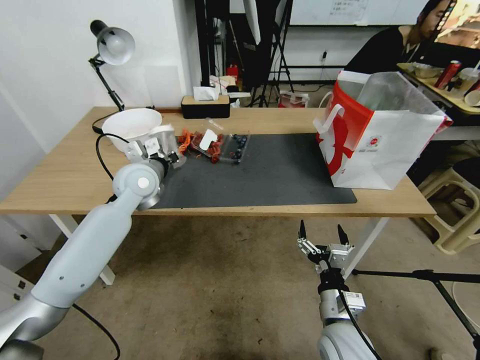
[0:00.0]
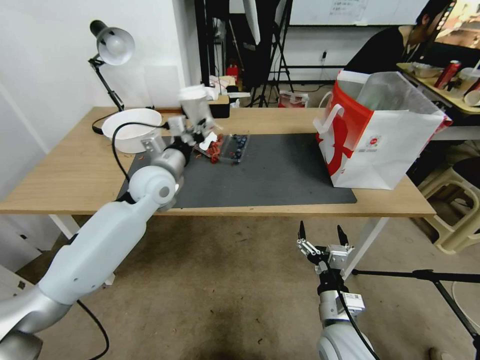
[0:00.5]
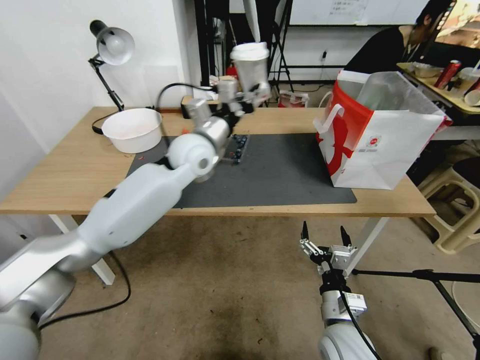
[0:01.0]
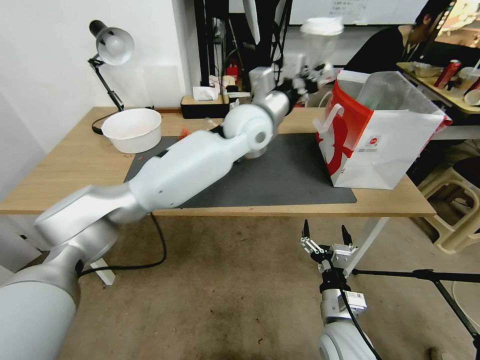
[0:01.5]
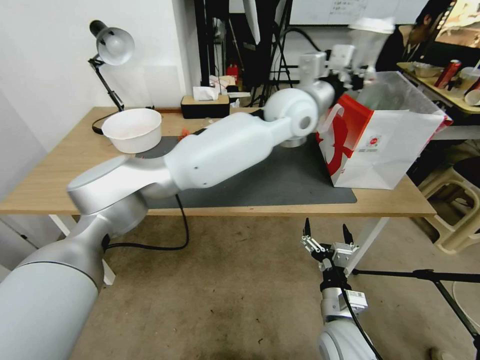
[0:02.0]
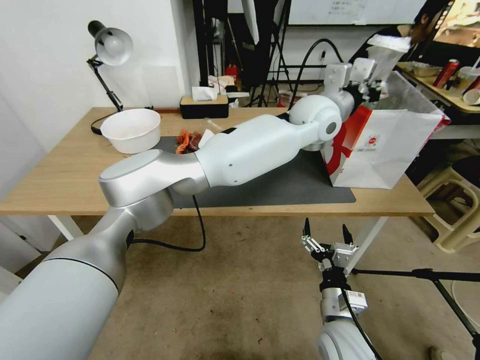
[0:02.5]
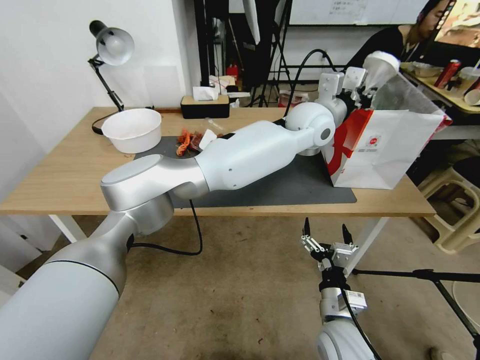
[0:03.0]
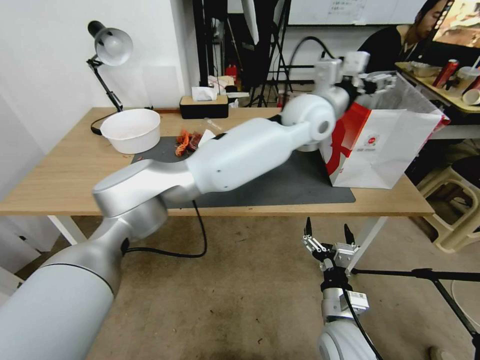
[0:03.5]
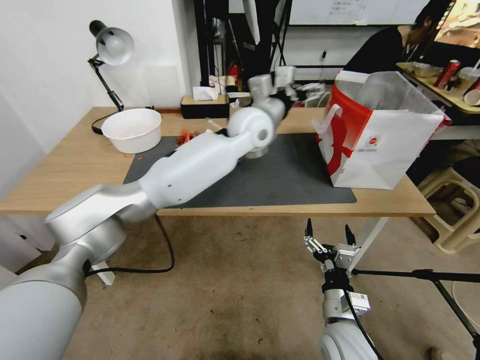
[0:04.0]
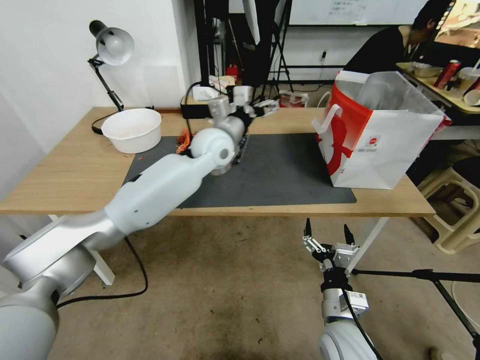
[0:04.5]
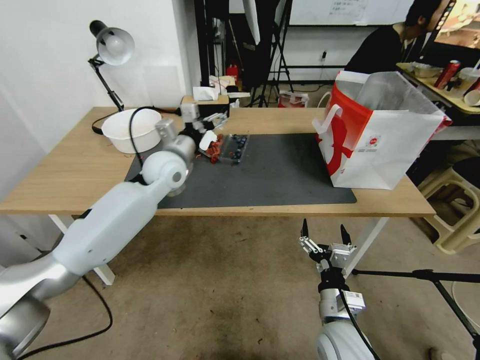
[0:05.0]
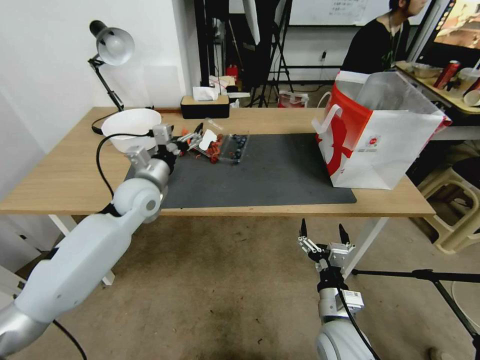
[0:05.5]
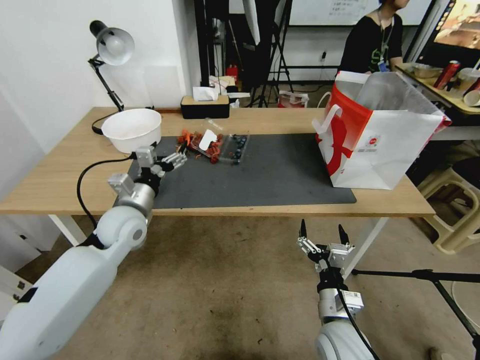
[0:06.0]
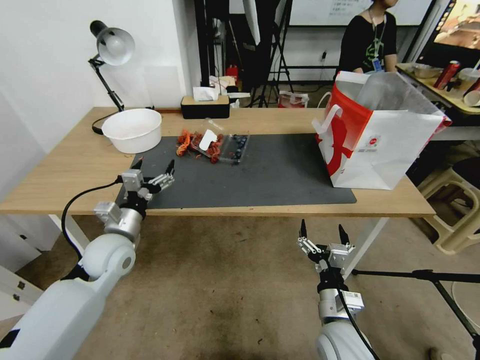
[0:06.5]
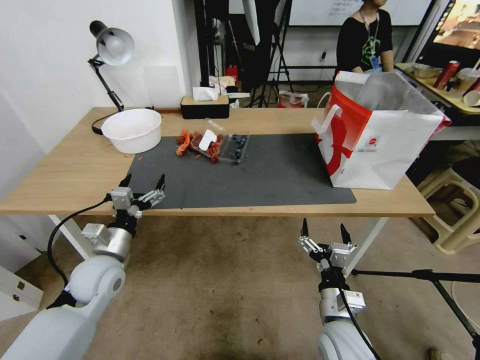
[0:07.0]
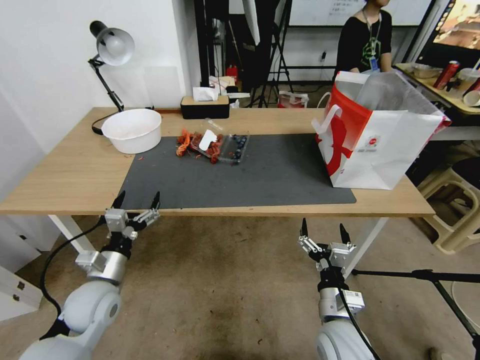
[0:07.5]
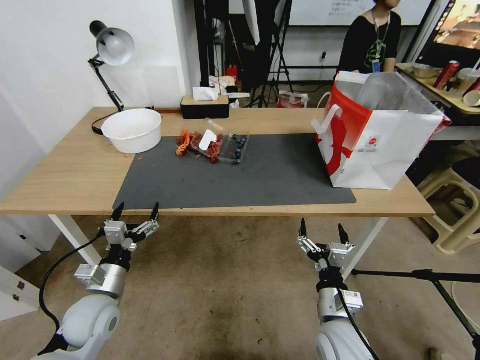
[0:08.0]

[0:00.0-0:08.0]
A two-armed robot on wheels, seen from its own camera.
0:00.0 to 0:02.0: The left gripper shifts approximately 35 cm to the right and upward.
0:02.0 to 0:04.0: The left gripper travels to the left and downward by roughly 10 cm, and opens.
0:04.0 to 0:06.0: The left gripper goes about 35 cm to the left, downward and backward.
0:06.0 to 0:08.0: The left gripper moves backward and downward, about 20 cm.
